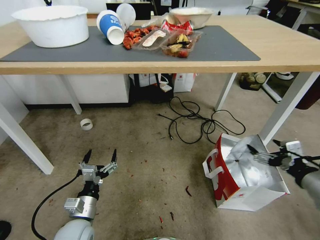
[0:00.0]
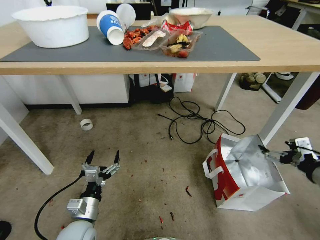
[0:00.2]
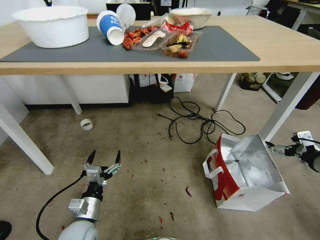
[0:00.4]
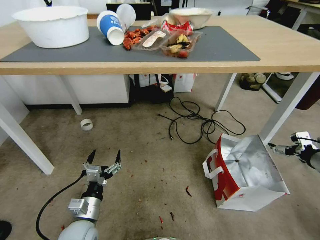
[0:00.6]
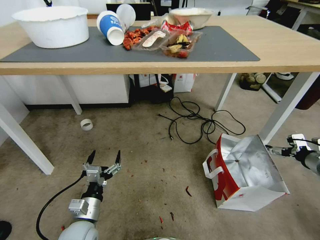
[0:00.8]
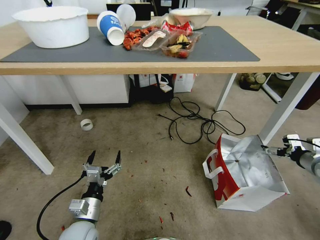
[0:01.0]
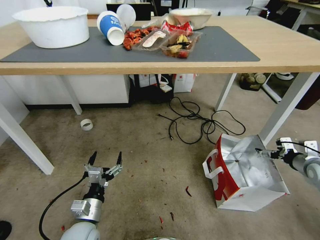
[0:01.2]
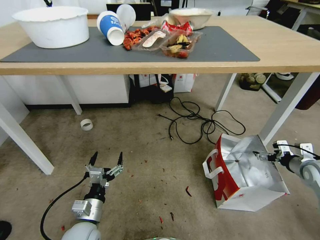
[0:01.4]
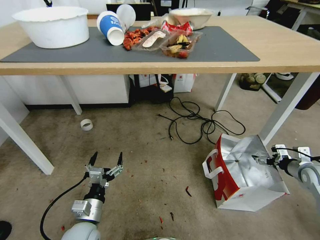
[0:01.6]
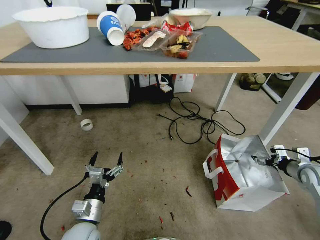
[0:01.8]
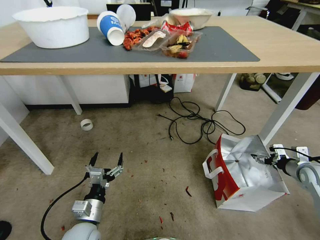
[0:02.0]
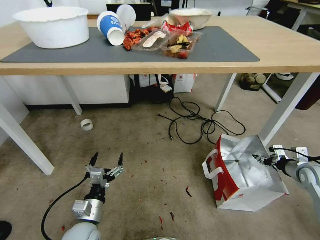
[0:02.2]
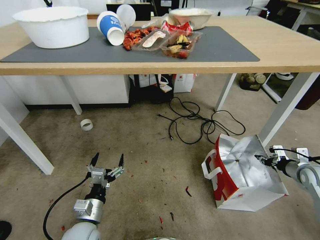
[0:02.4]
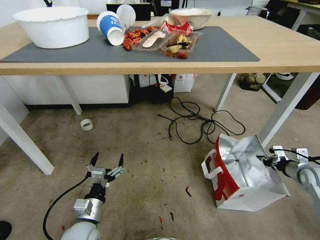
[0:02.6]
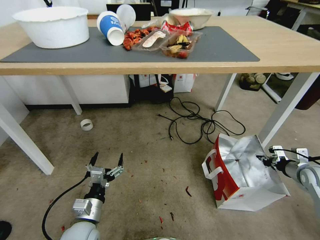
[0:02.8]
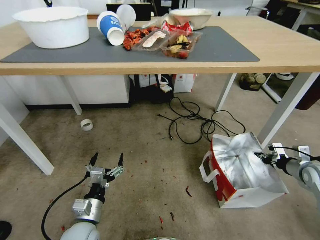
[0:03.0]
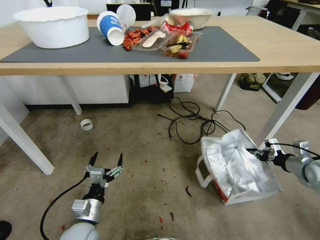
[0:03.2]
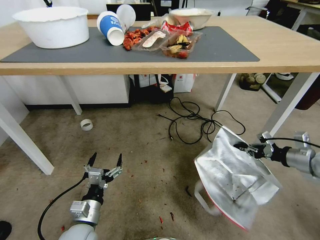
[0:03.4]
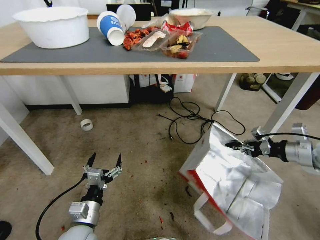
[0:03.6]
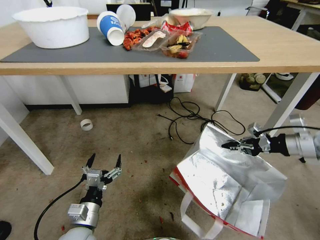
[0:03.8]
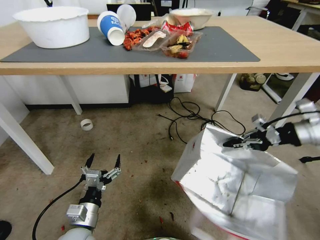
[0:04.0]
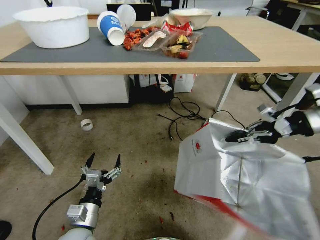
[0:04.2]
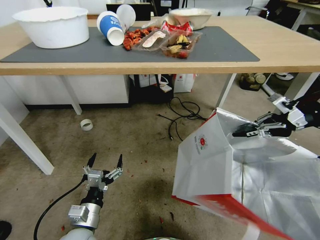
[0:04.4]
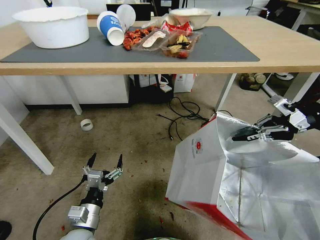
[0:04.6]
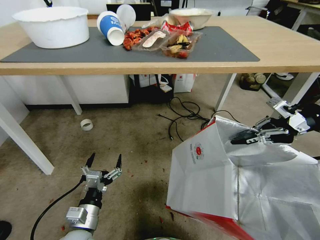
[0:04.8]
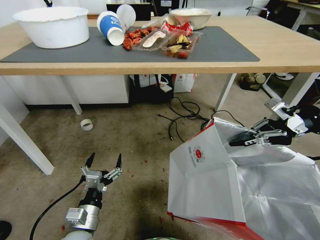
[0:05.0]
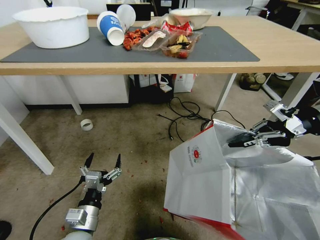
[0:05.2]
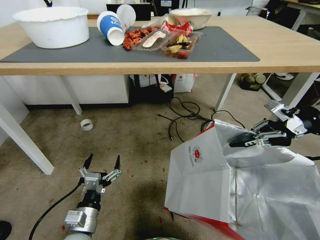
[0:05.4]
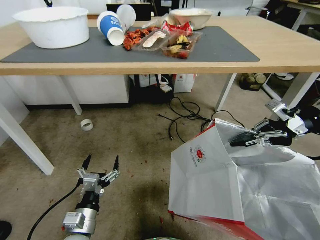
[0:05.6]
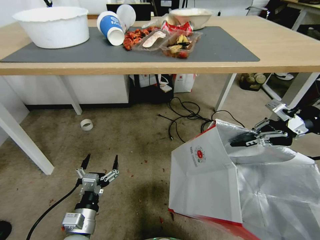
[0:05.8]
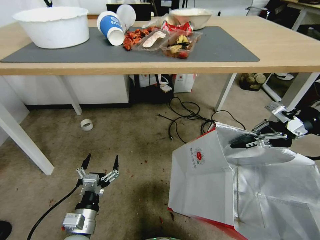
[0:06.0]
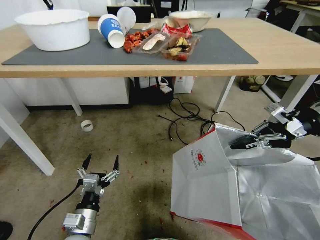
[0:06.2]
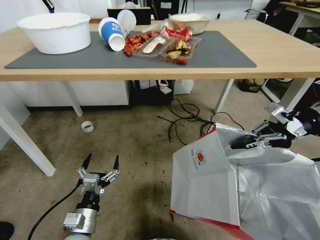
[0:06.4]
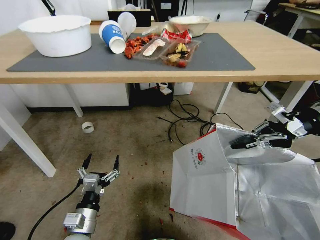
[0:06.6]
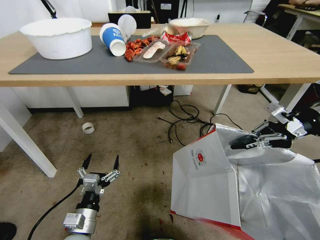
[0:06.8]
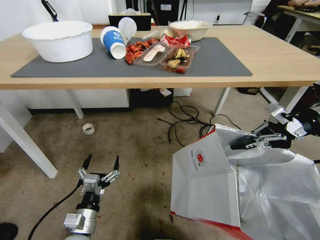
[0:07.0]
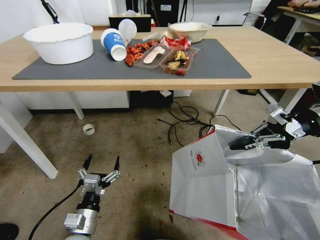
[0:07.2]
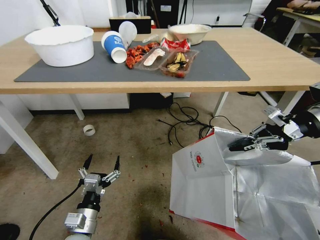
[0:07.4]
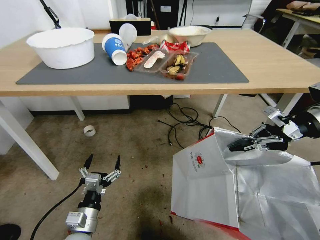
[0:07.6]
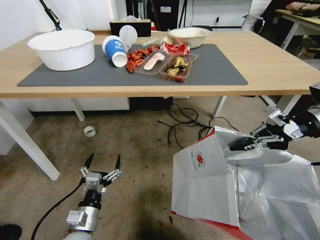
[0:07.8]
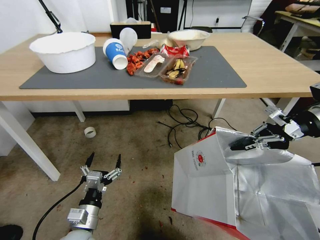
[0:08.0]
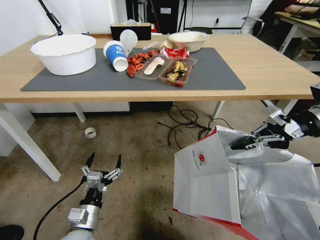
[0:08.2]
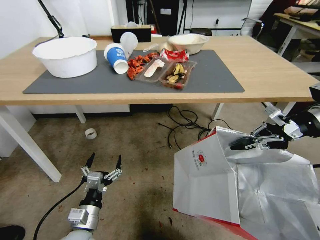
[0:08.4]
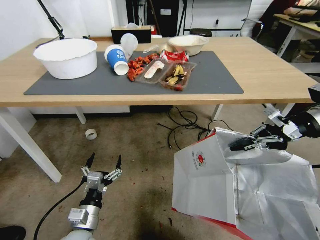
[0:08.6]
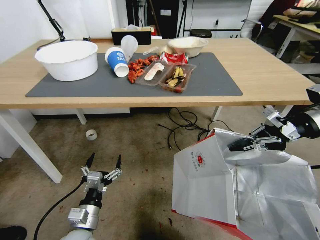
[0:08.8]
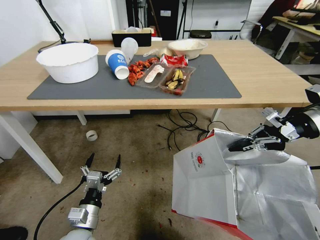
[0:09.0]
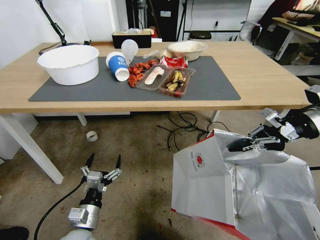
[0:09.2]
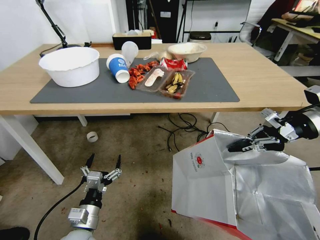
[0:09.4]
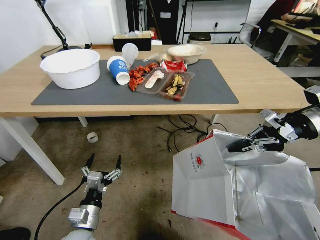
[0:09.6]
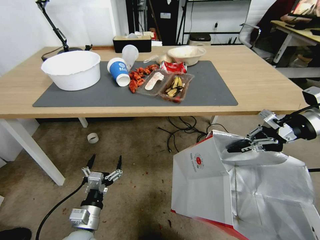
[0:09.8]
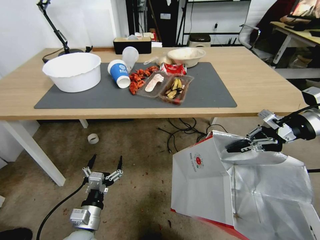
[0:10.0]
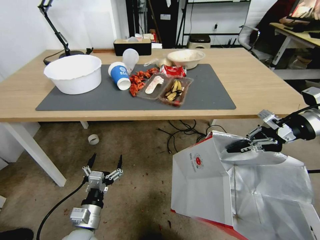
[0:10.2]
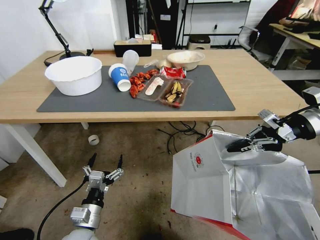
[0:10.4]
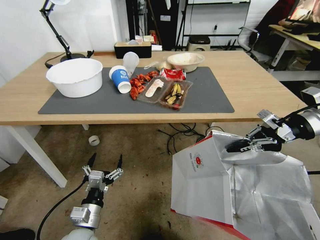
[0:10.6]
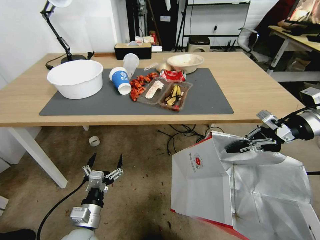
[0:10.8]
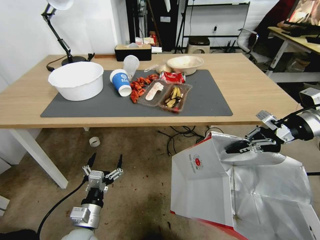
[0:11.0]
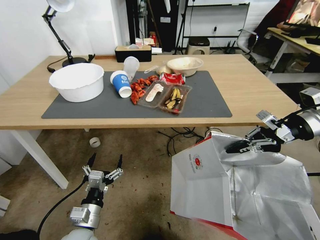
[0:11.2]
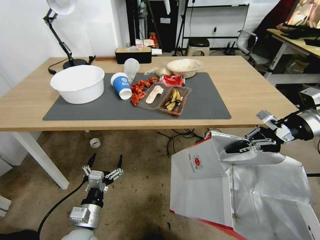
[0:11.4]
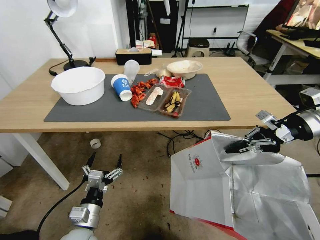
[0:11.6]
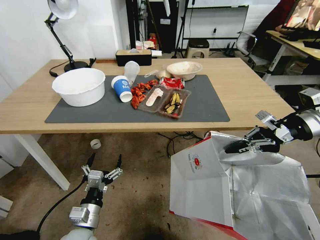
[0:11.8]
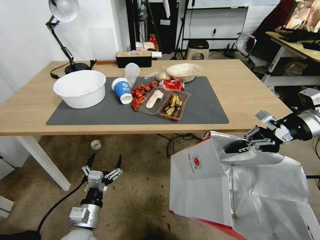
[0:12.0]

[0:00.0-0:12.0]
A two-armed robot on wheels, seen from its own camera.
Task of the whole recording: Pick up the food delivery bag from the floor and place it on the table.
0:00.0 to 0:01.6: The right gripper shifts some 20 cm forward, to the right and downward.
0:01.6 to 0:03.0: The right gripper closes its fingers.
0:03.0 to 0:04.4: The right gripper is displaced upward by roughly 30 cm.
0:04.4 to 0:06.0: There are only small adjustments of the grippers.

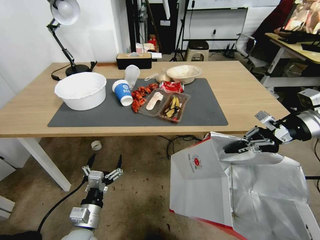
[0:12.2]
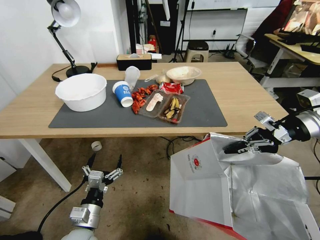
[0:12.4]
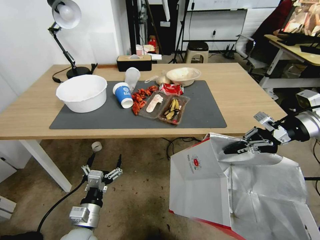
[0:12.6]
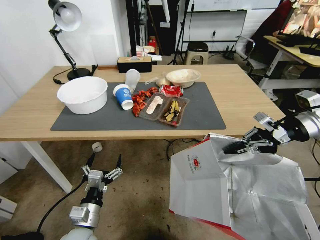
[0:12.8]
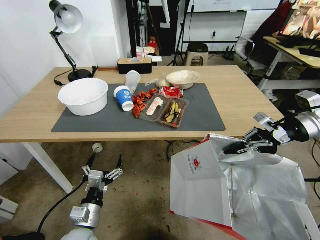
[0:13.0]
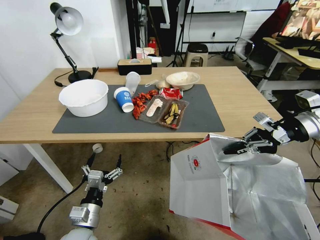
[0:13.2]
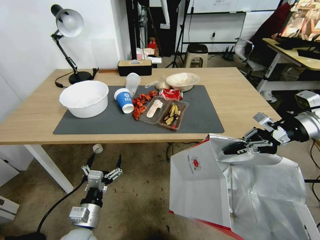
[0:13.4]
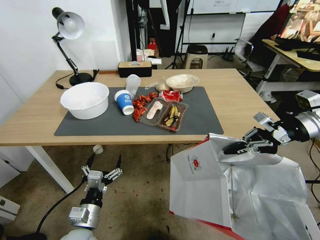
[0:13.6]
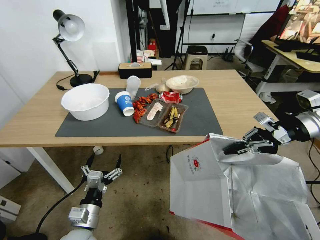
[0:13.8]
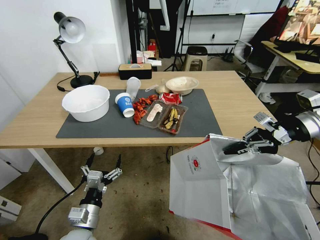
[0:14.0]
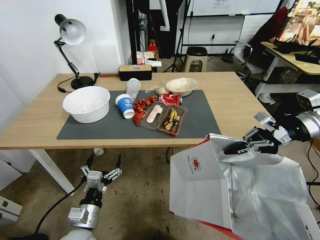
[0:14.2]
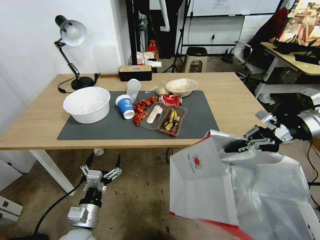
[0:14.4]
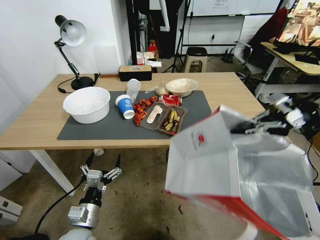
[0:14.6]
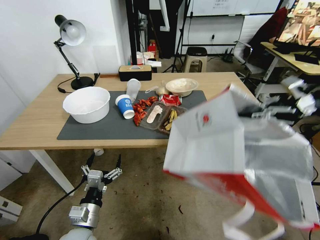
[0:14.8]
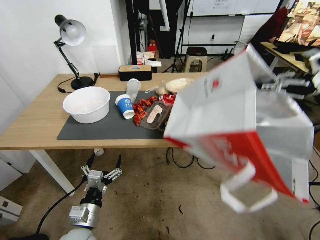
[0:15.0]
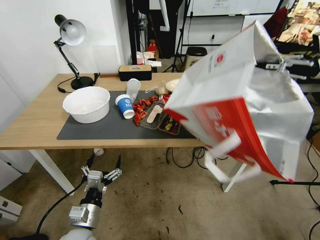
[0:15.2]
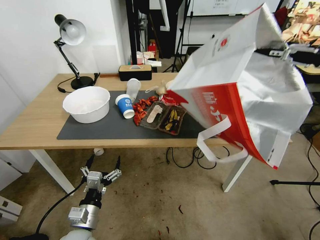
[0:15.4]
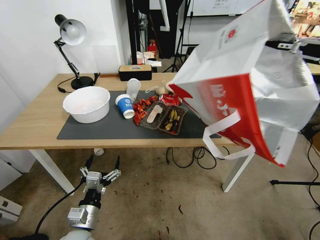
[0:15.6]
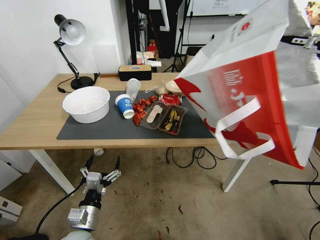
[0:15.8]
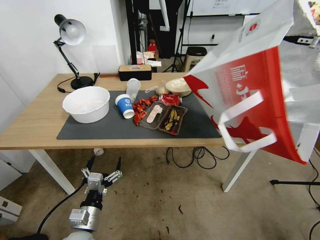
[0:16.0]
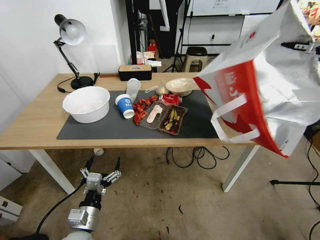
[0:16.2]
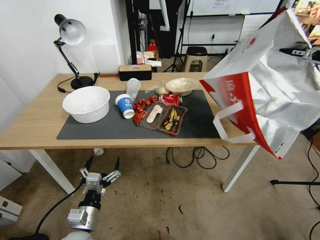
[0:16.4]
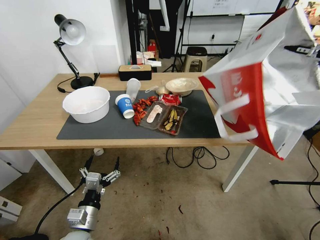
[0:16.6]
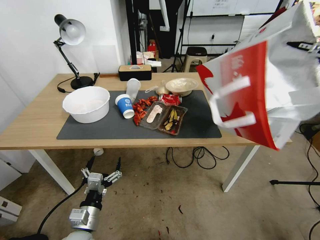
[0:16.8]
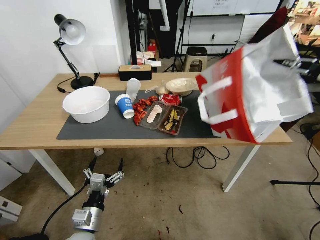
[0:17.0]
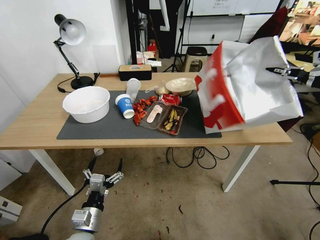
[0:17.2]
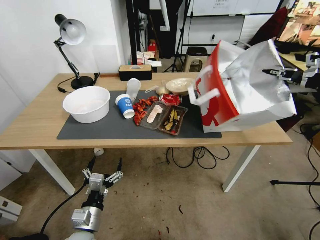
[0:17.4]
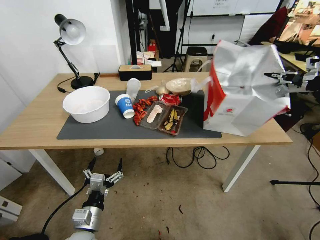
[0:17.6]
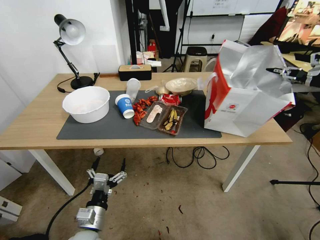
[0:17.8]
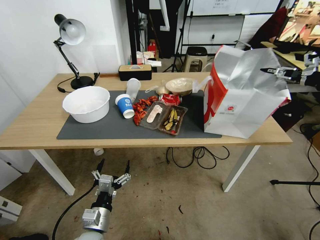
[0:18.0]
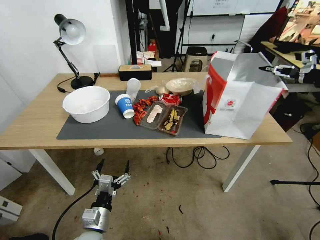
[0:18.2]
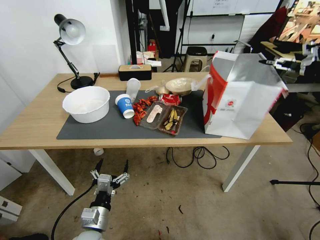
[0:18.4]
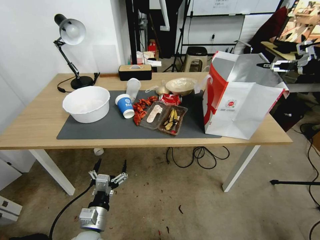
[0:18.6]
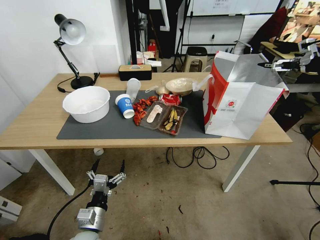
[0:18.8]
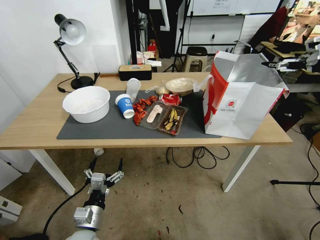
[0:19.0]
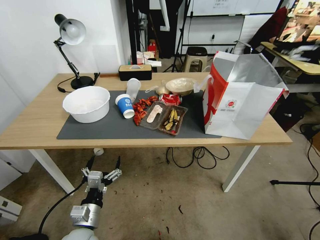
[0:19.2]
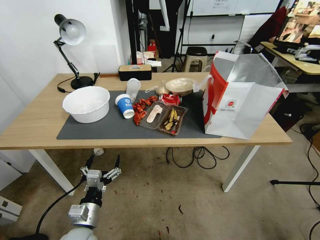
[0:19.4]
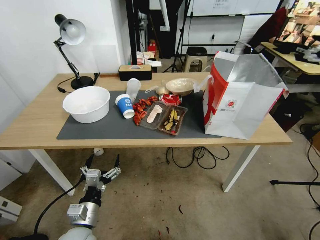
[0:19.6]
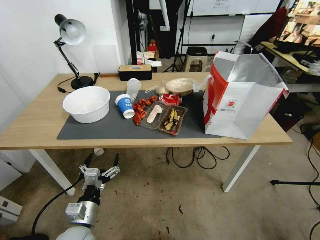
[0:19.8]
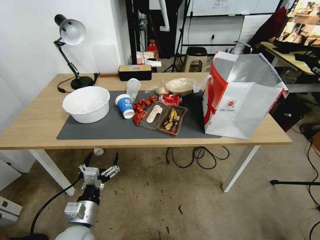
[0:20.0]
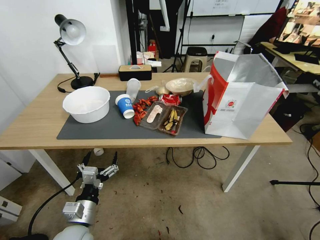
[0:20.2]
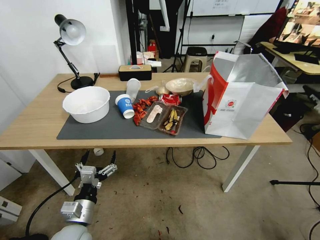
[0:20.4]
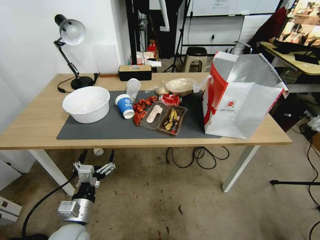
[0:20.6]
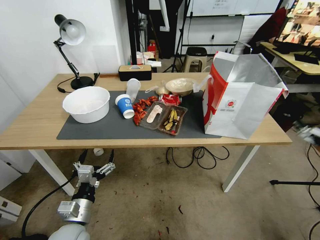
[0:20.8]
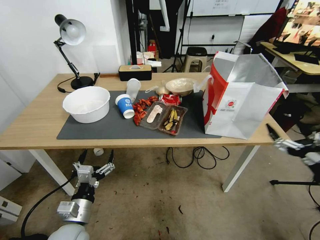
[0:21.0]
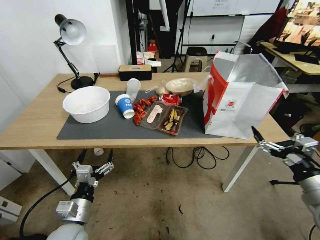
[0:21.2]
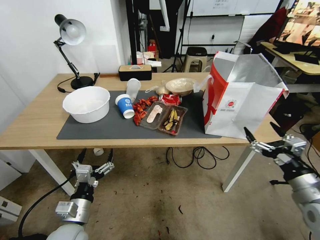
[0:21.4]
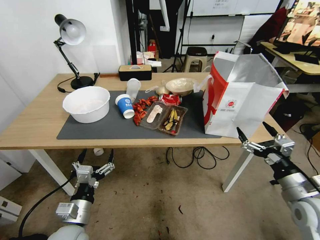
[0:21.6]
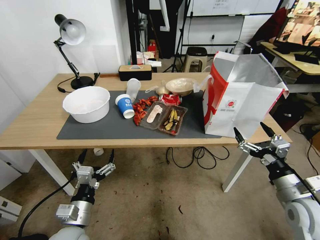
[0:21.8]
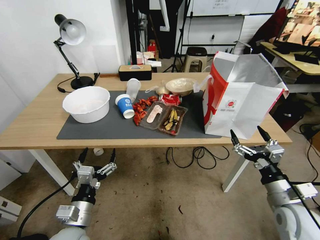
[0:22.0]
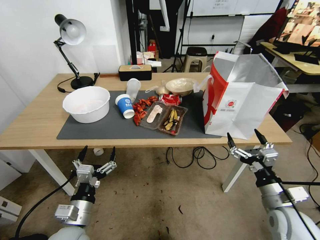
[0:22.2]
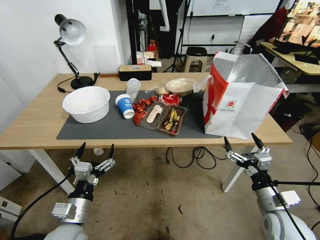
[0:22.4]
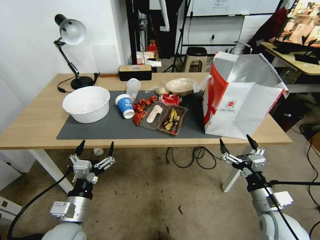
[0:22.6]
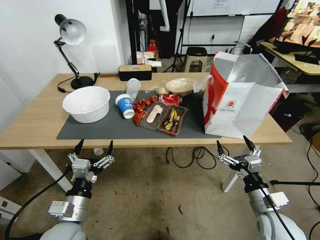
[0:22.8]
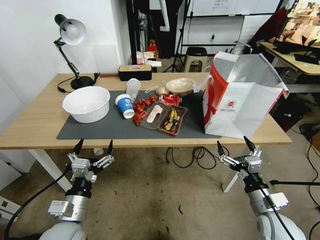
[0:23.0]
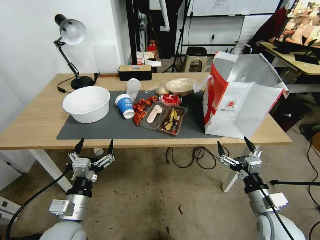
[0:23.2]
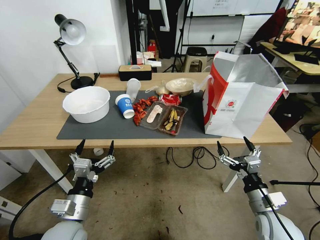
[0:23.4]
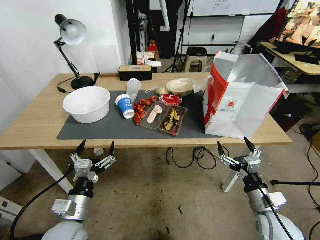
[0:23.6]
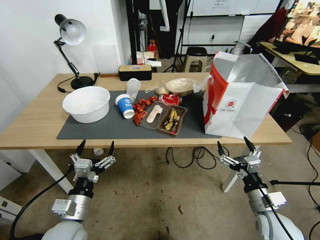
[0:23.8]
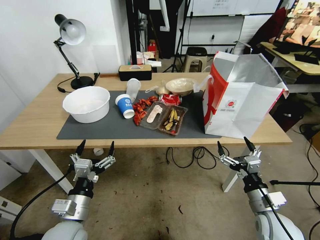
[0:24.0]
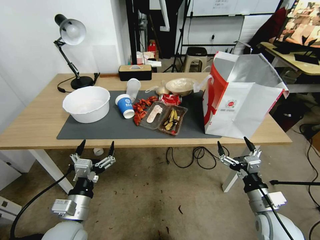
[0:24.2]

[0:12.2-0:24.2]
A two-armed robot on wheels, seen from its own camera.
Task of the whole recording: Pick up the food delivery bag from the floor and place it on the table.
0:13.8 to 0:15.2: The right gripper moves upward and to the right, some 10 cm.
0:15.2 to 0:16.6: The right gripper moves approximately 5 cm.
0:16.6 to 0:18.2: The right gripper moves forward and downward, about 10 cm, and opens.
0:18.2 to 0:19.8: The right gripper shifts roughly 15 cm backward.
0:19.8 to 0:21.2: The right gripper shifts roughly 30 cm downward, backward and to the left.
0:21.2 to 0:22.6: The right gripper travels to the left and downward by roughly 15 cm.
0:22.6 to 0:24.2: The grippers move only a little.
